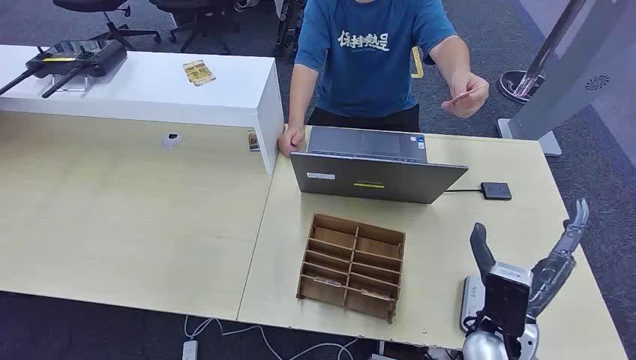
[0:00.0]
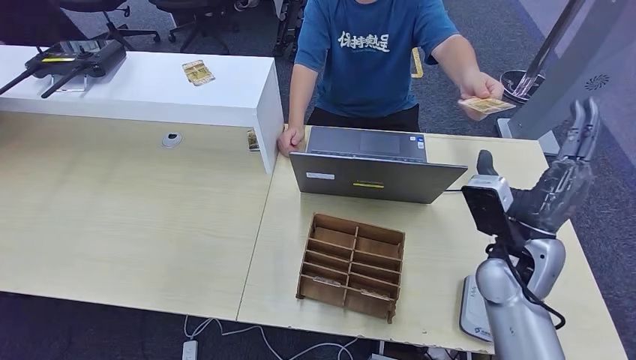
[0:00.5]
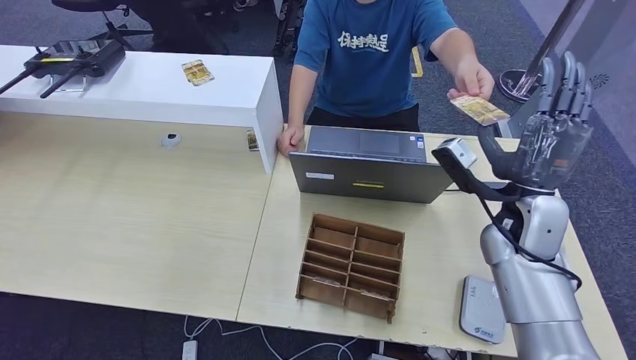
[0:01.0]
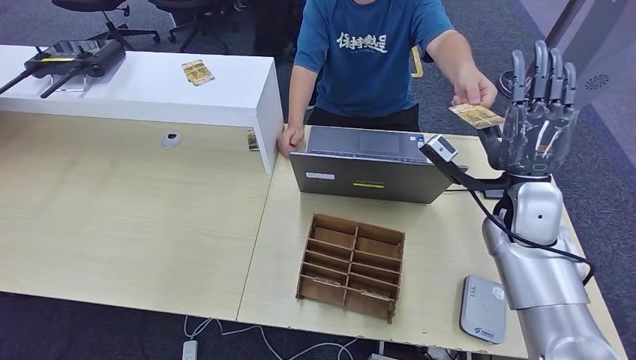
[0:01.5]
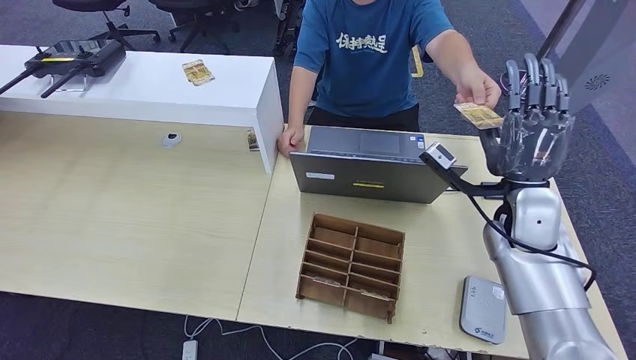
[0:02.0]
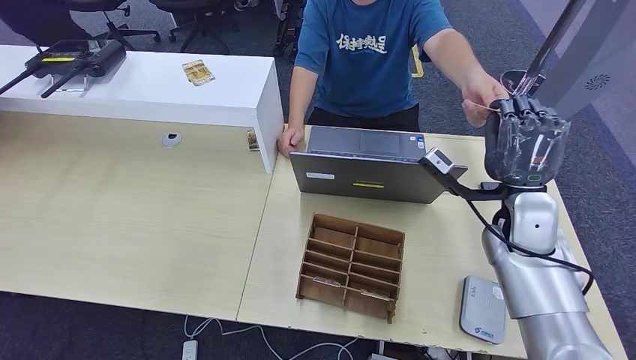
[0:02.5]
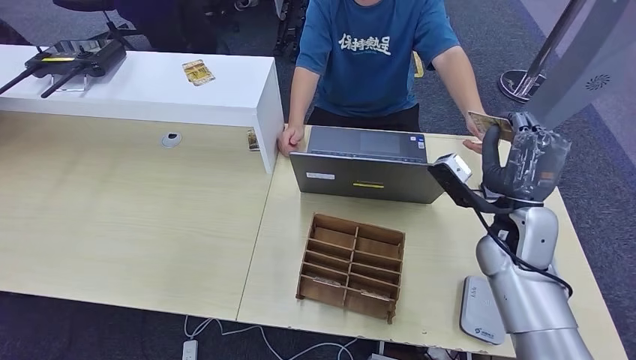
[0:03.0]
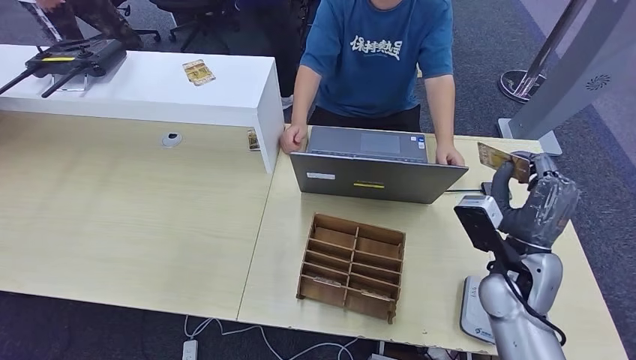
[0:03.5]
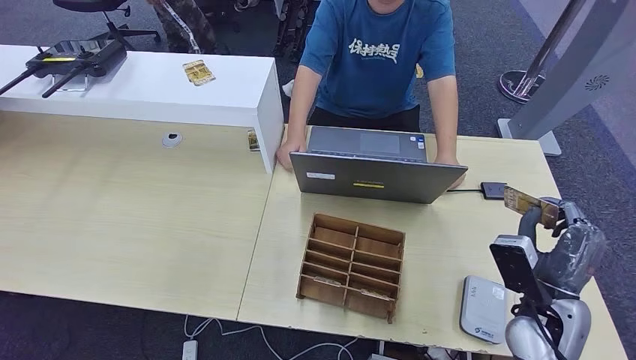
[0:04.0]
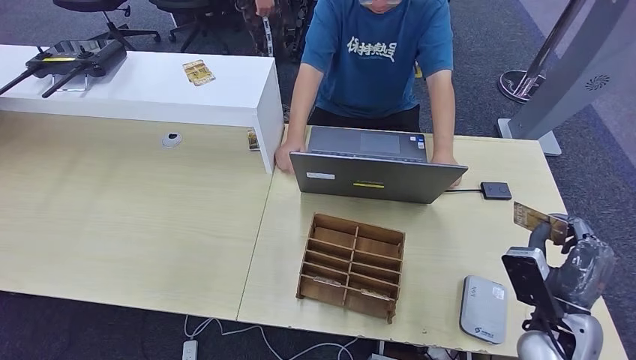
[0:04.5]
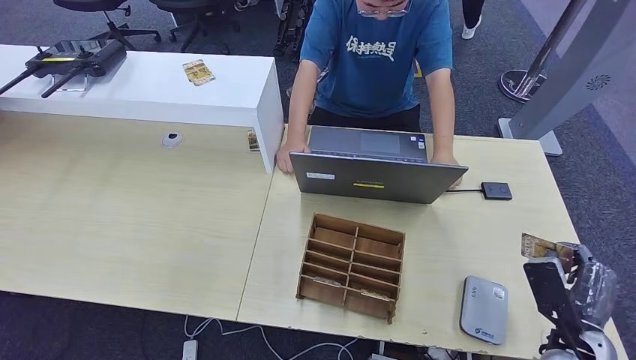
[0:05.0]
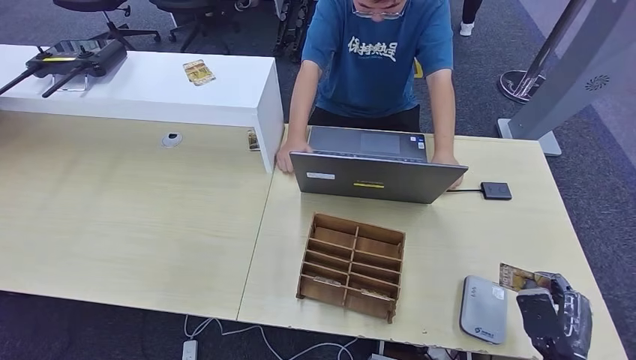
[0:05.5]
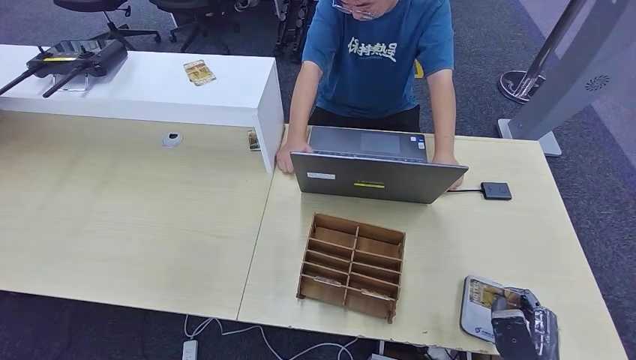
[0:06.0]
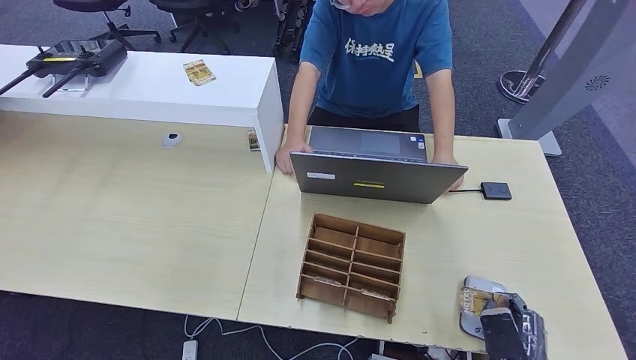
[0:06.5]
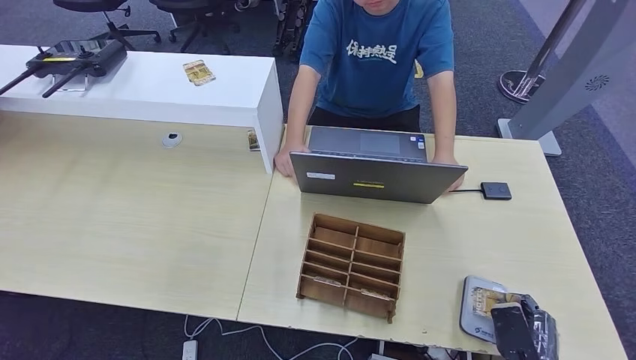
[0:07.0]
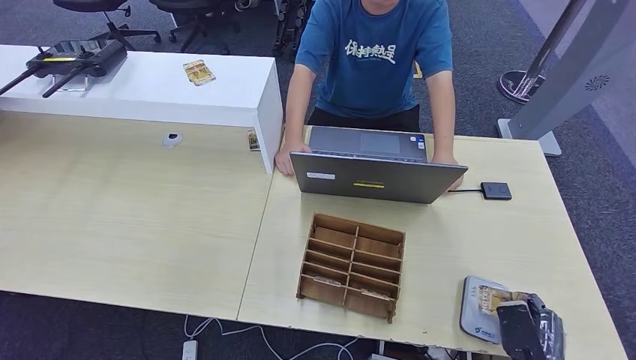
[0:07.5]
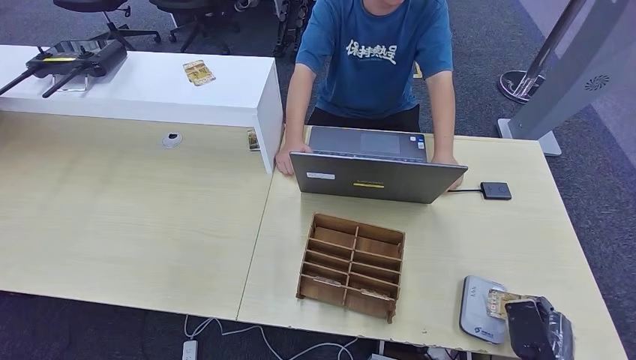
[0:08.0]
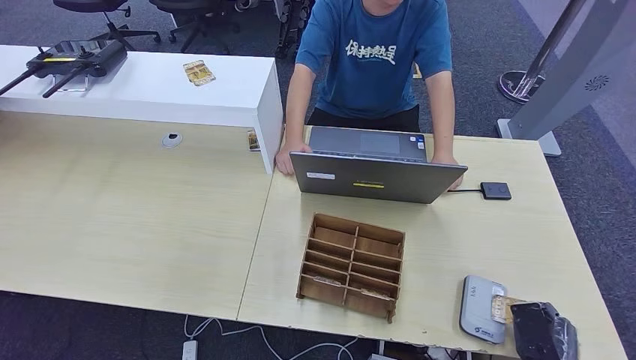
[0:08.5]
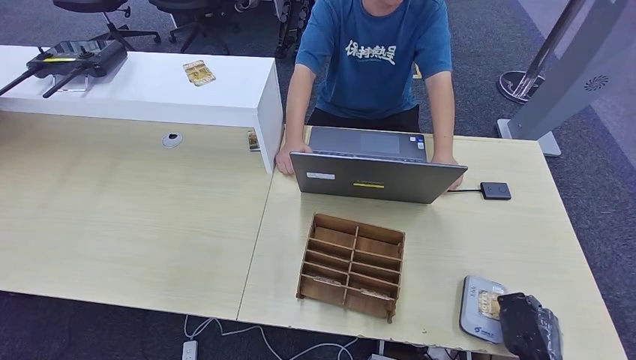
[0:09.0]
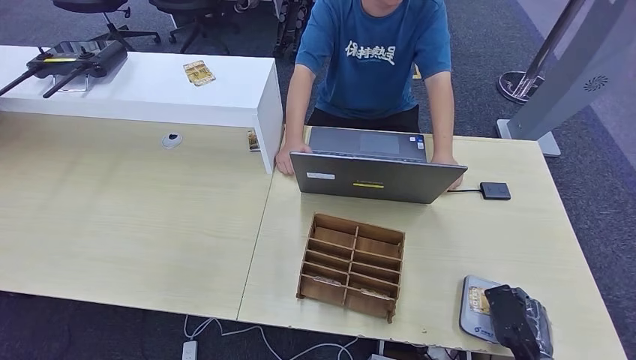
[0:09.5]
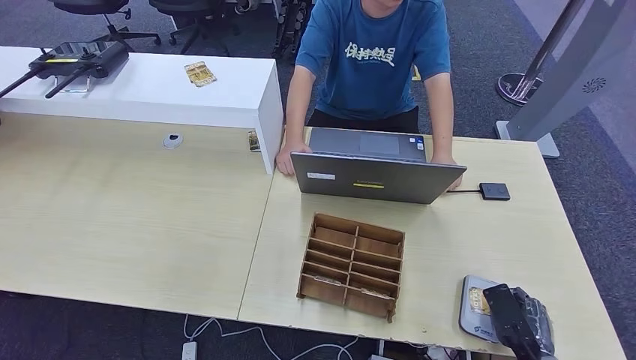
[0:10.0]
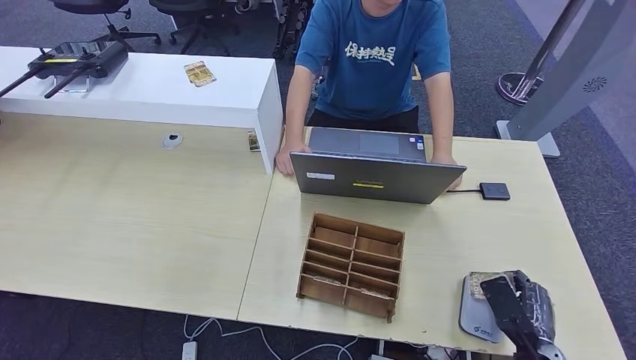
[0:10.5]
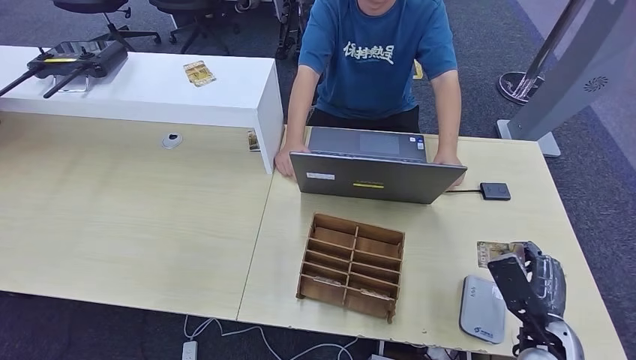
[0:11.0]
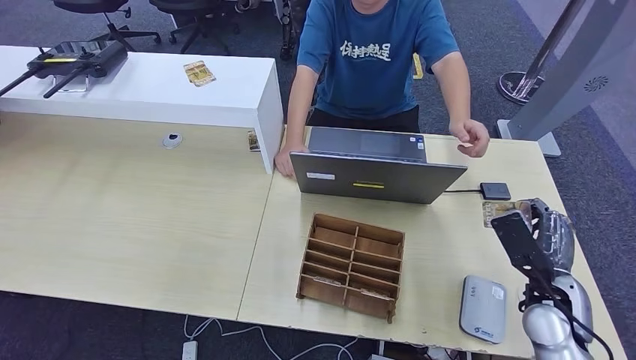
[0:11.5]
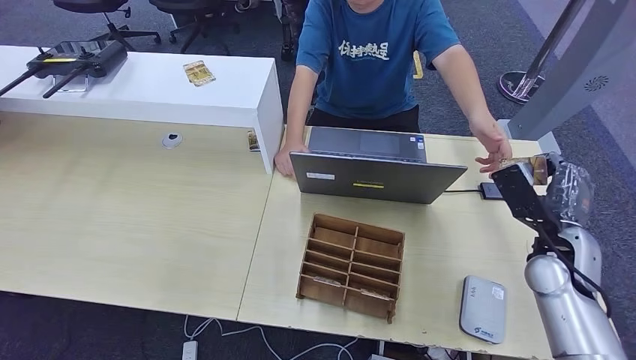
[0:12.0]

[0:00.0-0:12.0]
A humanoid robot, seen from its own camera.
Step, 0:00.0 to 0:04.5: Take the ID card from the person's hand.
Step, 0:05.0 to 0:11.0: Place the ID card on the card reader.
0:02.0 to 0:04.0: The right hand heads backward, downward and to the right, covering approximately 15 cm.
0:04.0 to 0:06.0: The right hand is displaced backward and downward by some 15 cm.
0:06.0 to 0:08.0: The hands make only small movements.
0:08.0 to 0:10.0: The hands stay close to where they were, moving slightly.
0:10.0 to 0:12.0: The right hand is displaced forward and upward by roughly 25 cm.

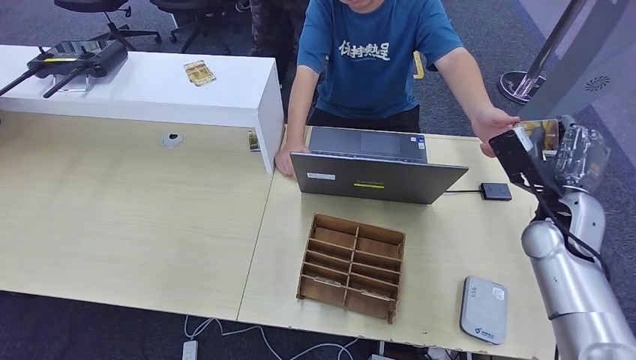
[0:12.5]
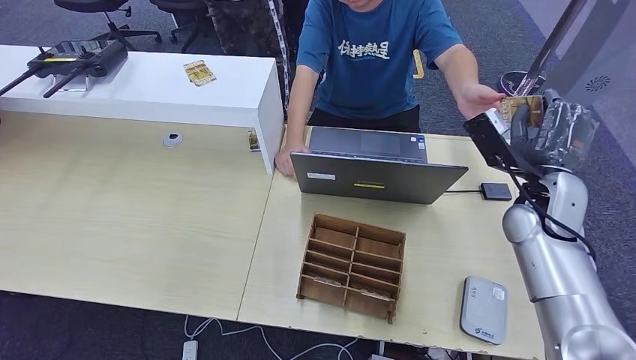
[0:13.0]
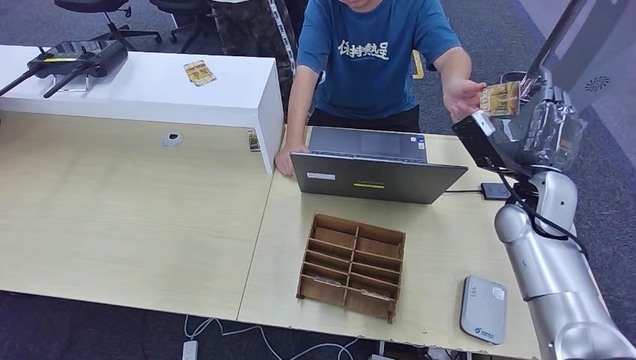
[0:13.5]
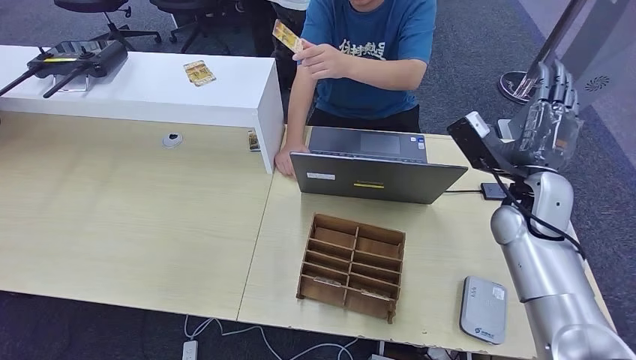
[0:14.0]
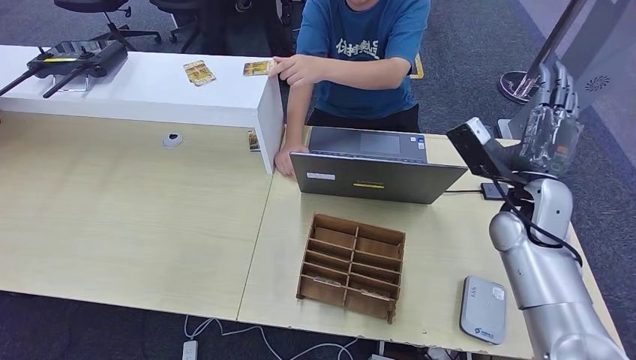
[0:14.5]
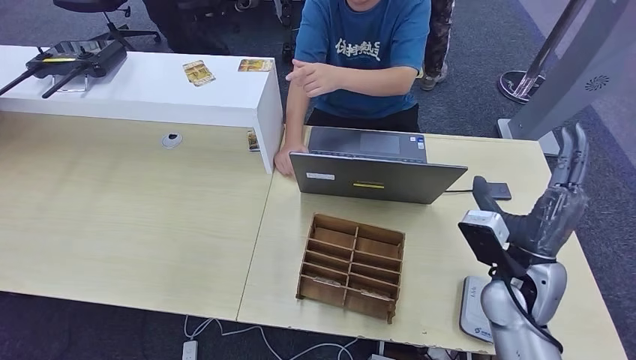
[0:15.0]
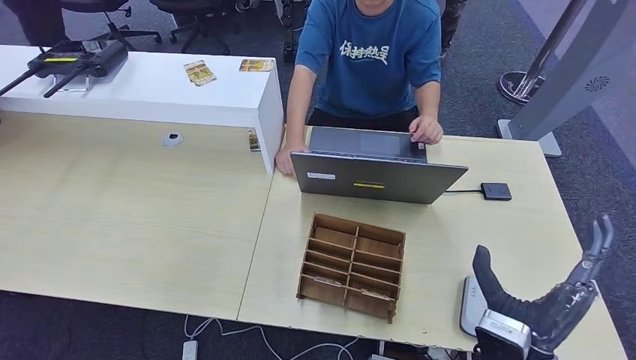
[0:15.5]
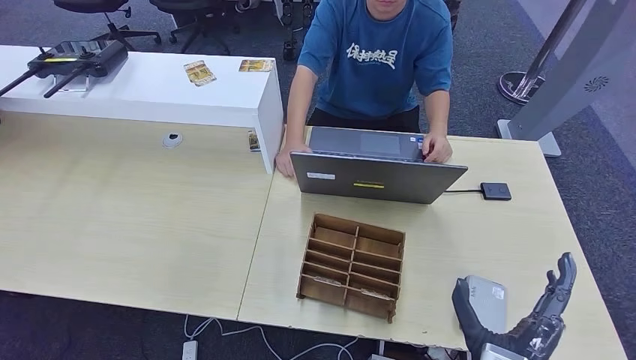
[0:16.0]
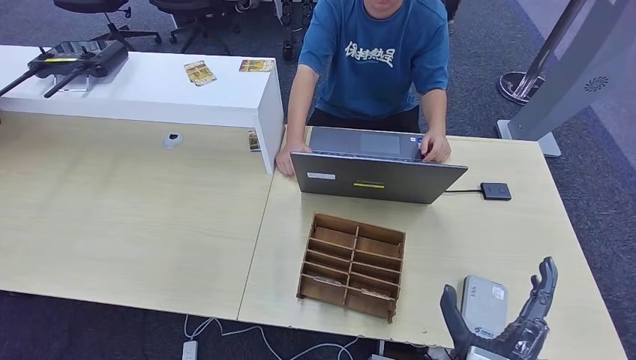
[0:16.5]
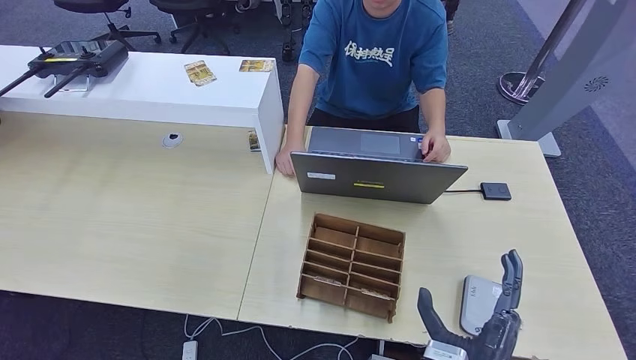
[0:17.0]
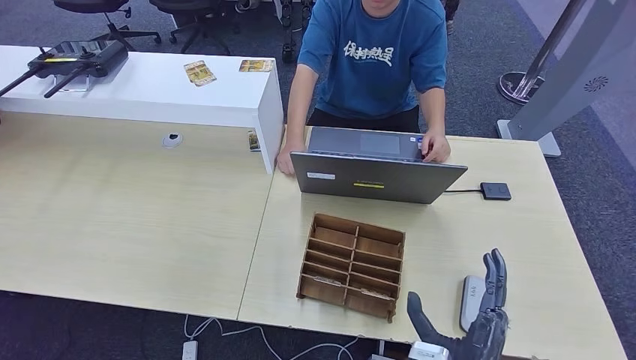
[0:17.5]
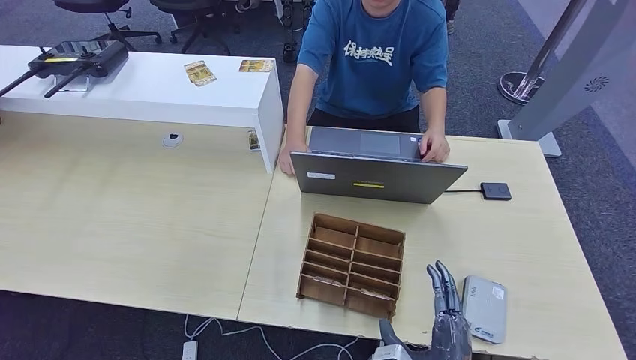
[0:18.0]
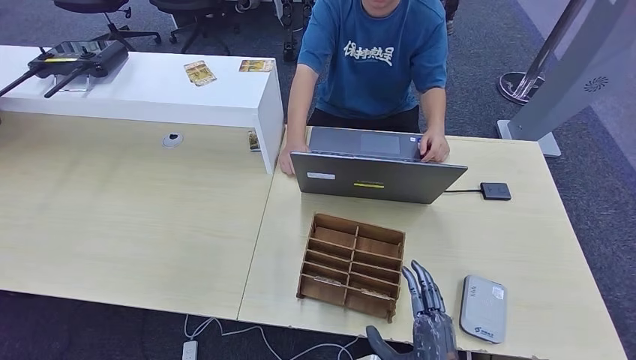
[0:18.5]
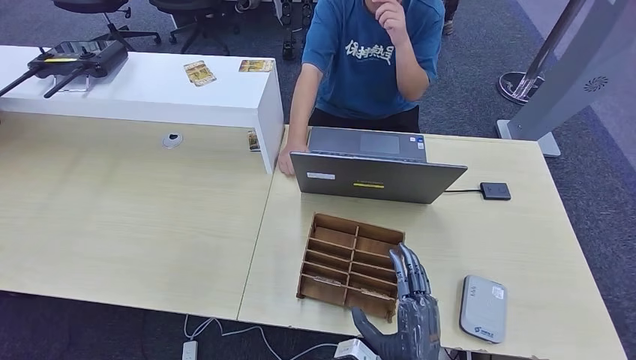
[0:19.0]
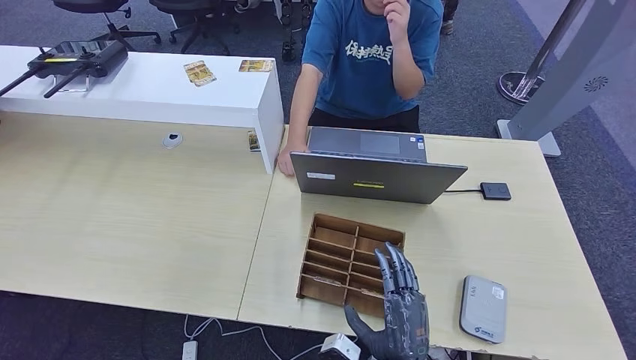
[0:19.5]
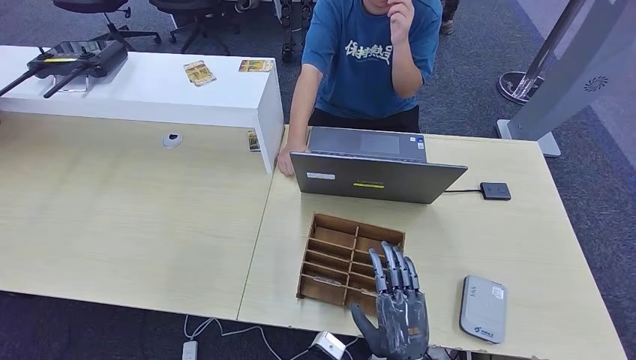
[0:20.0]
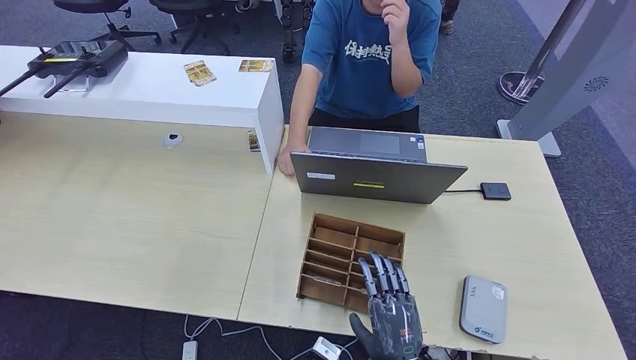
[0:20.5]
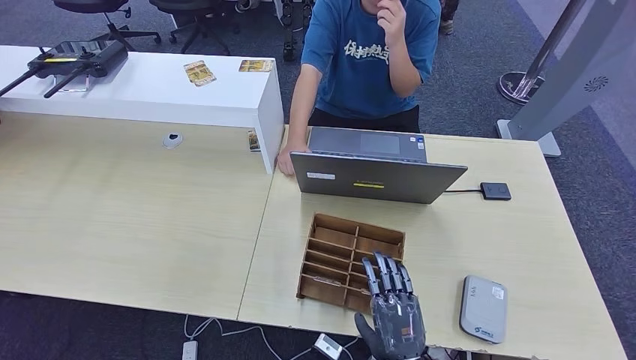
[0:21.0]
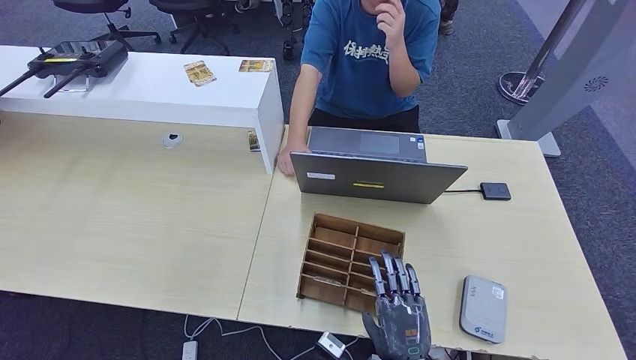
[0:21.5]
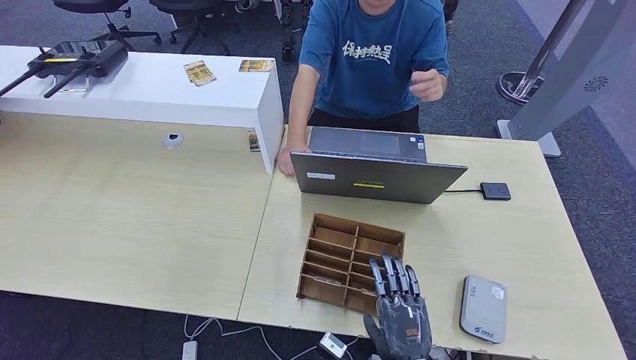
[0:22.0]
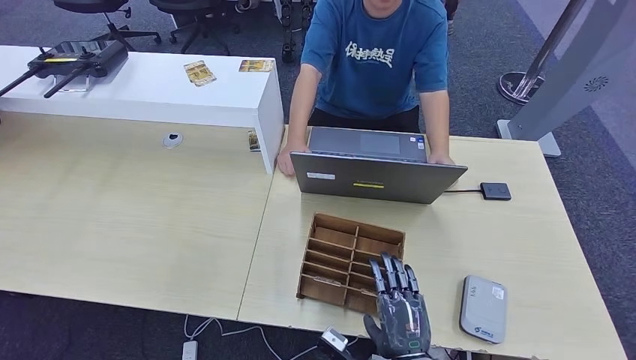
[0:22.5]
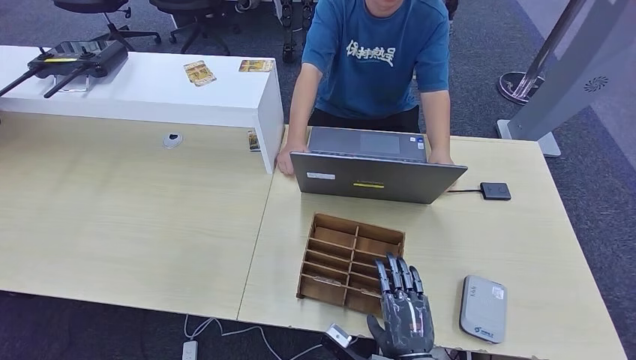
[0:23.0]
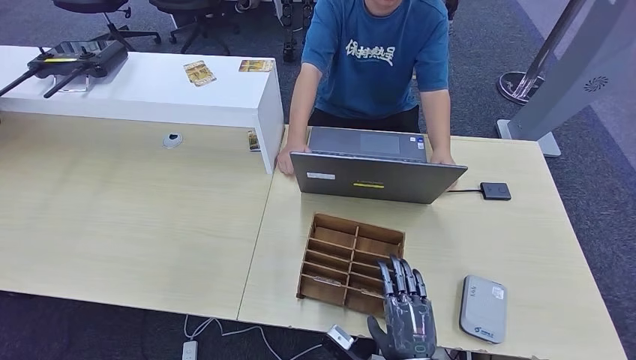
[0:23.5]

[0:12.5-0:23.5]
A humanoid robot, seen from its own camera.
0:12.5 to 0:14.5: The right hand heads to the left, covering roughly 5 cm.
0:14.5 to 0:16.0: The left hand heads to the right, covering about 5 cm, while the right hand shifts about 30 cm backward and downward.
0:16.0 to 0:18.0: The right hand moves approximately 5 cm.
0:18.0 to 0:20.0: The right hand moves roughly 5 cm.
0:20.0 to 0:23.5: The hands move only a little.
